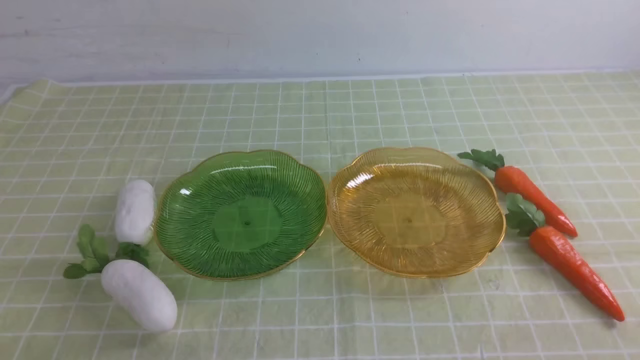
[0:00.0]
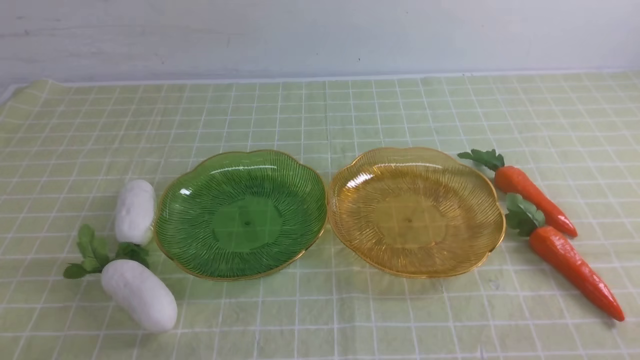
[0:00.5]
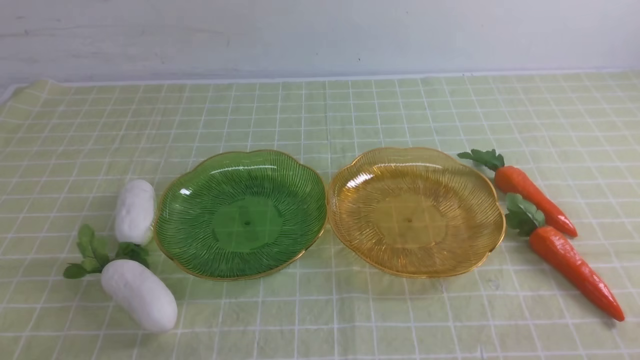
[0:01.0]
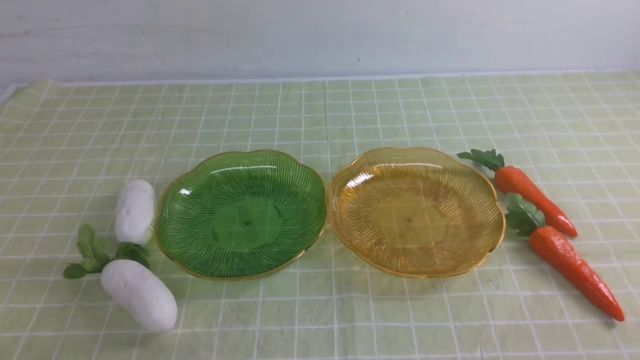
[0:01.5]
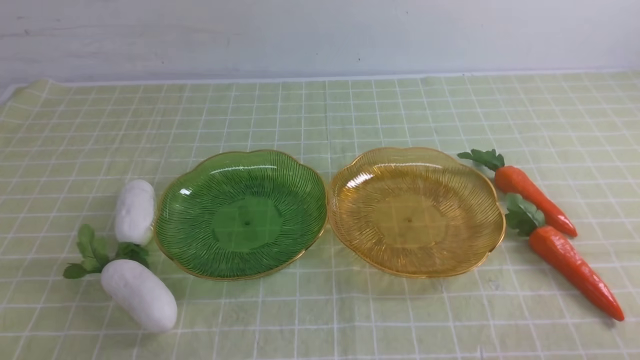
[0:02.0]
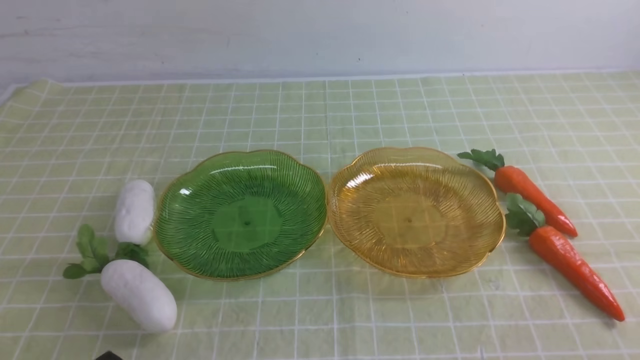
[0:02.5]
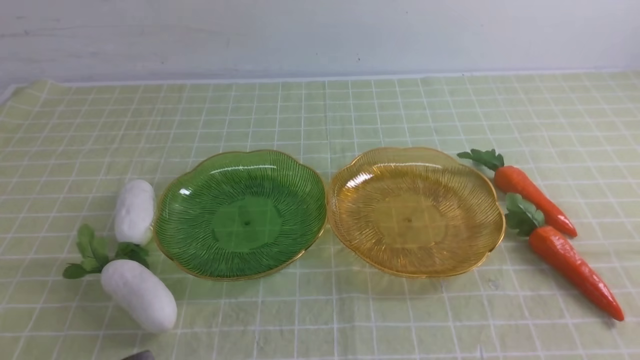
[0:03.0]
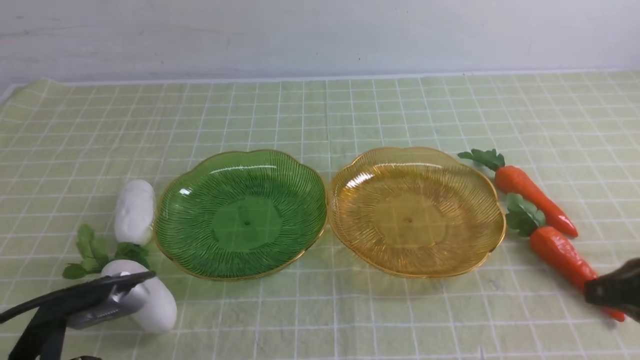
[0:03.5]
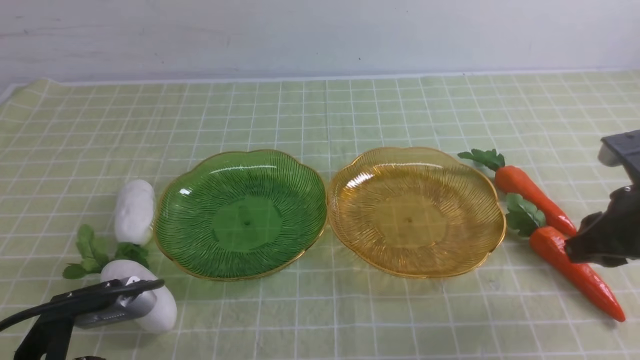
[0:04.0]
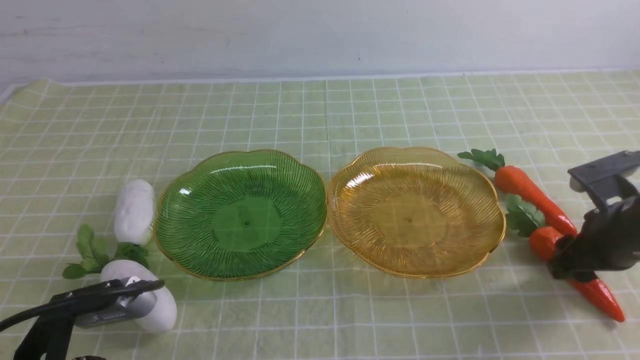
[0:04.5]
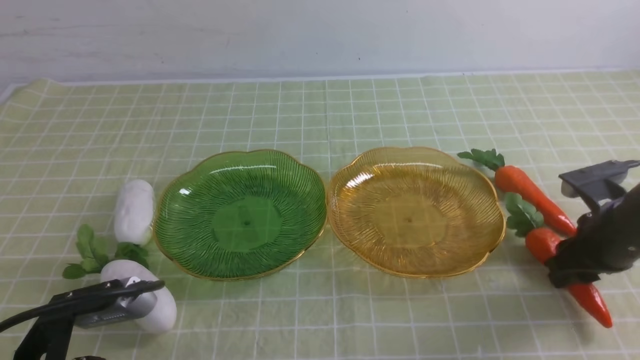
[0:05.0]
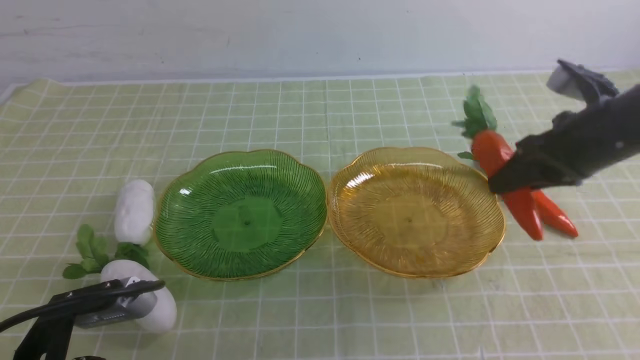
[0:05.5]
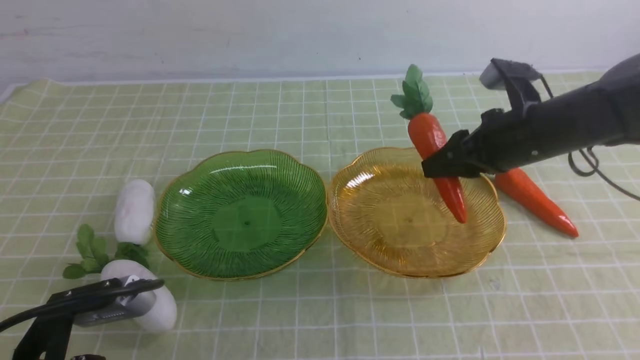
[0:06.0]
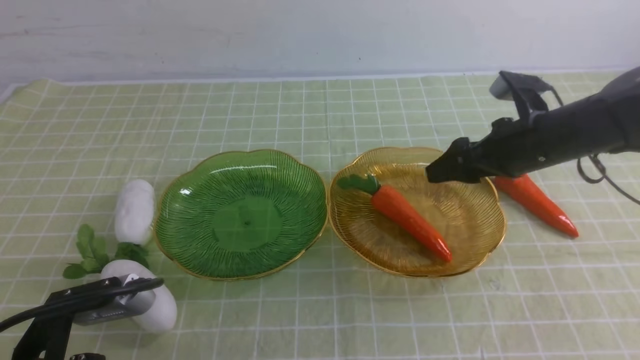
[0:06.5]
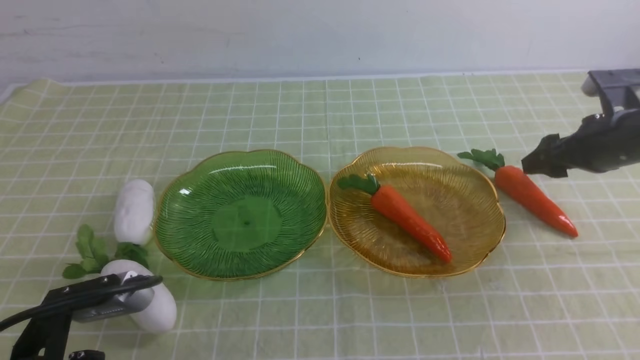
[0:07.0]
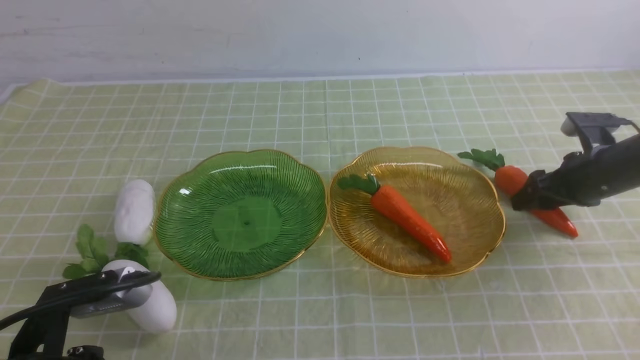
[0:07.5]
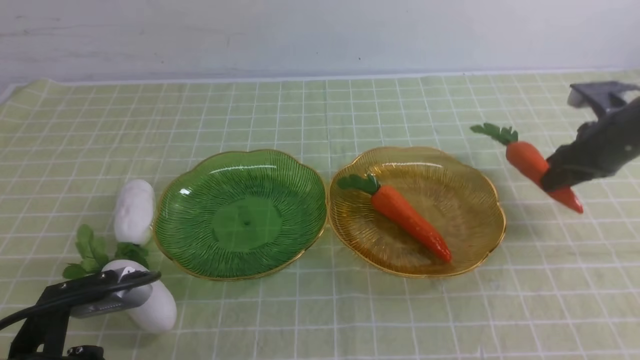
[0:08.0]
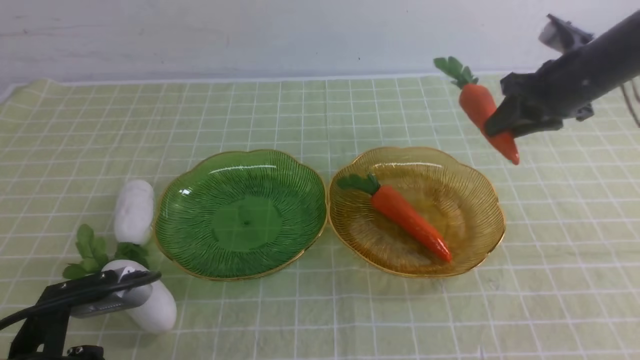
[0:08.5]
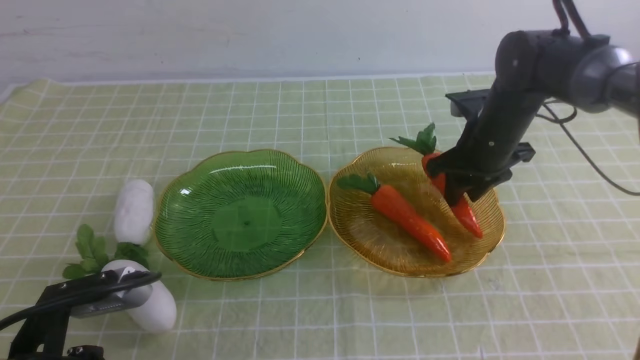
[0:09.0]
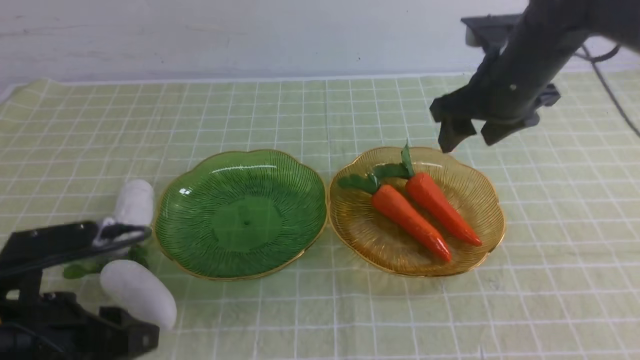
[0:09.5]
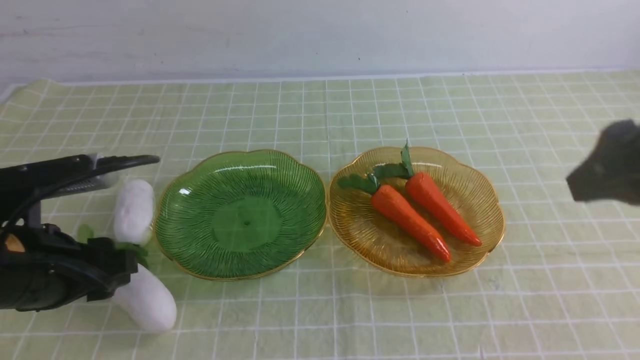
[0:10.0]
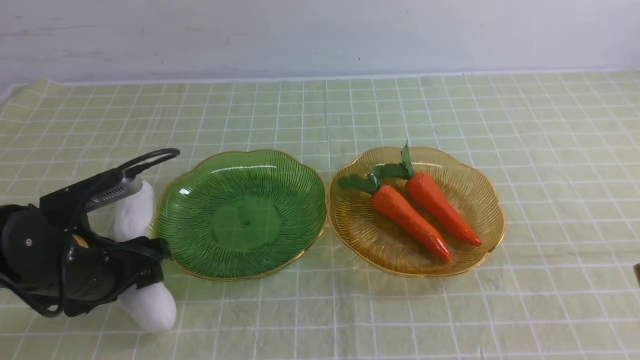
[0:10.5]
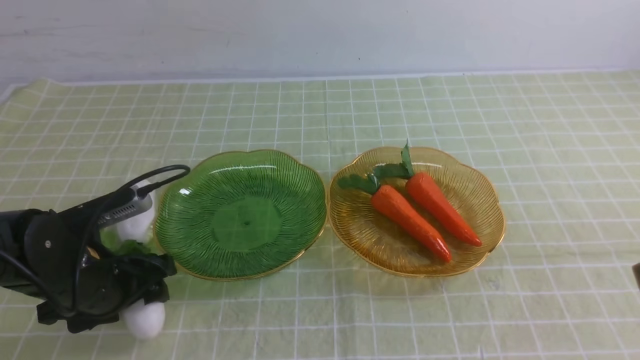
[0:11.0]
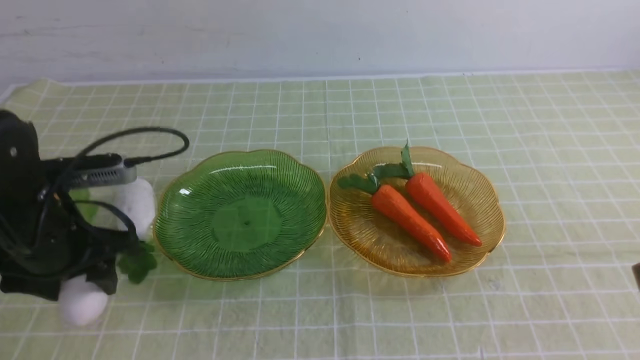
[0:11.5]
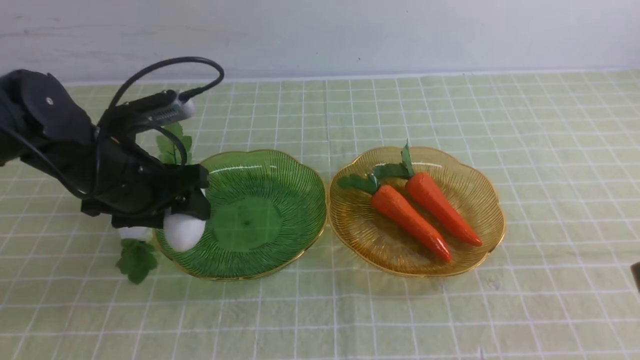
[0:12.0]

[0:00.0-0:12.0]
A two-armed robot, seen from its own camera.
Step, 0:00.0 to 0:07.5: use the right arm to grab a carrot and put it into the right plate.
Step, 0:08.0 to 0:10.0: use the right arm to grab a carrot and put it into the right plate.
0:02.0 to 0:04.0: The left gripper travels forward by about 5 cm. The right gripper shifts approximately 20 cm forward, and opens.
0:04.0 to 0:06.0: The right gripper is displaced forward and to the left by roughly 15 cm.
0:06.0 to 0:08.0: The right gripper moves to the right, some 15 cm, and opens, then closes once more.
0:08.0 to 0:10.0: The right gripper moves backward, upward and to the left, roughly 30 cm. The left gripper travels forward by approximately 10 cm, and opens.
0:10.0 to 0:12.0: The right gripper shifts some 5 cm backward. The left gripper heads forward, covering approximately 10 cm.

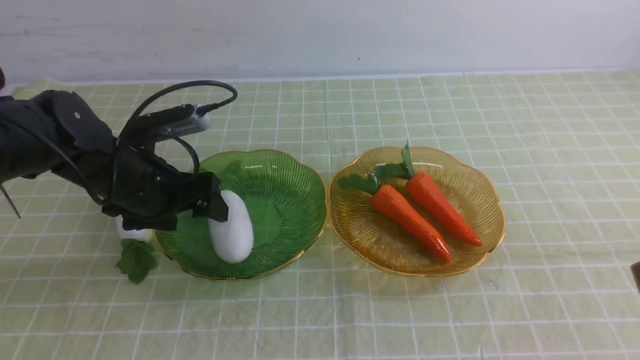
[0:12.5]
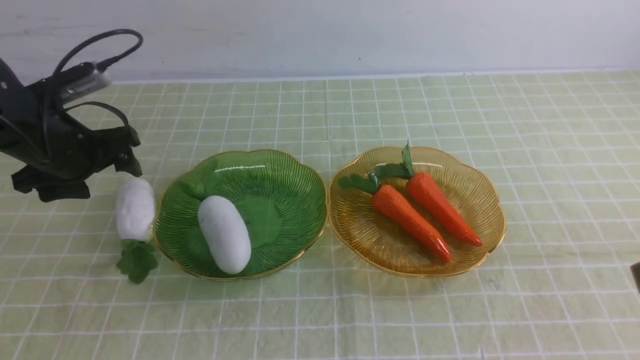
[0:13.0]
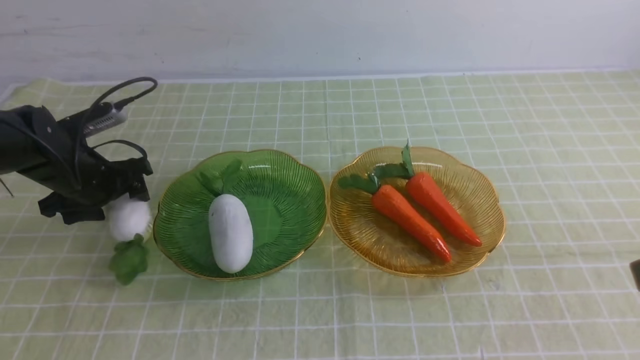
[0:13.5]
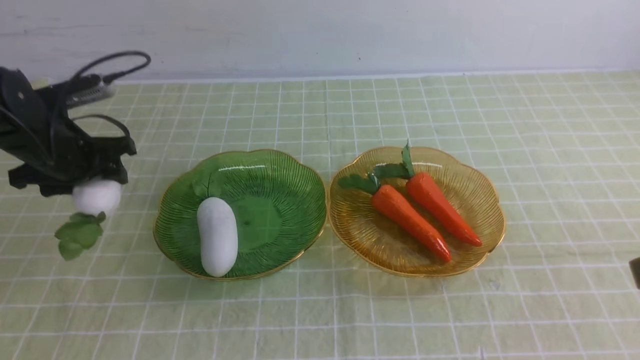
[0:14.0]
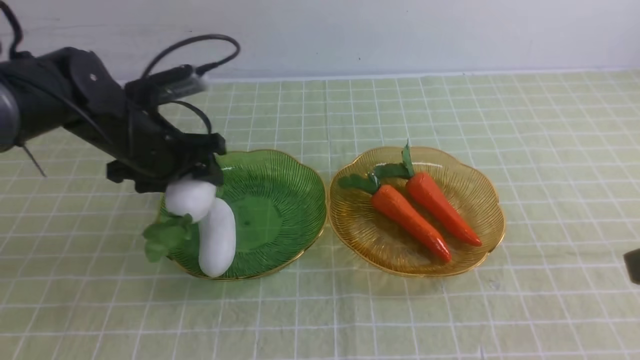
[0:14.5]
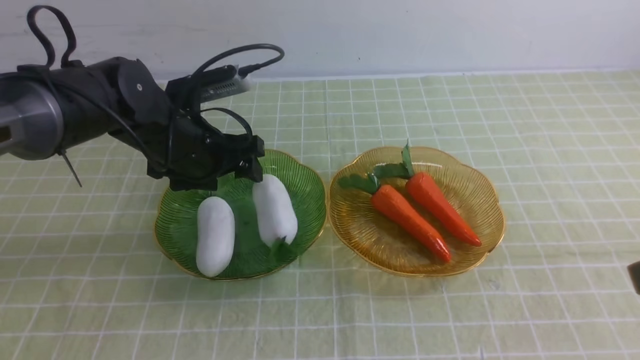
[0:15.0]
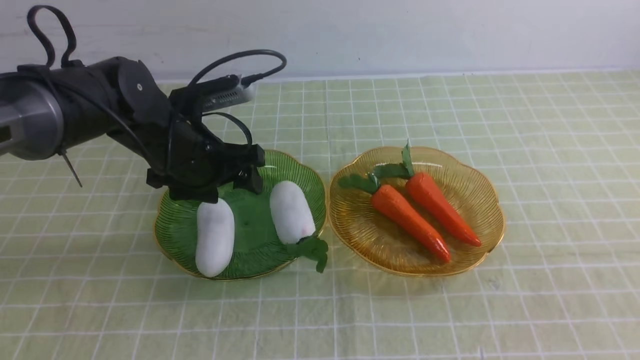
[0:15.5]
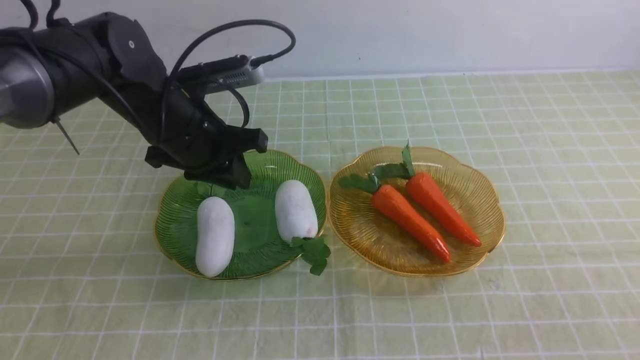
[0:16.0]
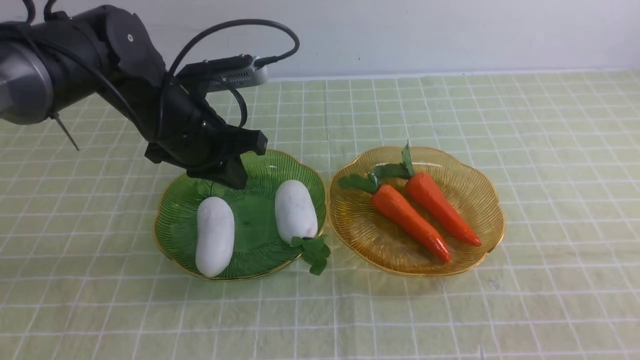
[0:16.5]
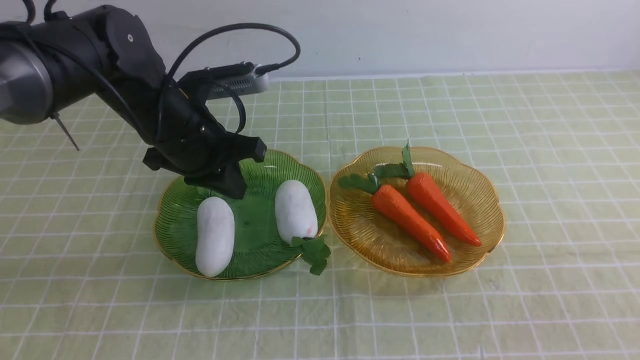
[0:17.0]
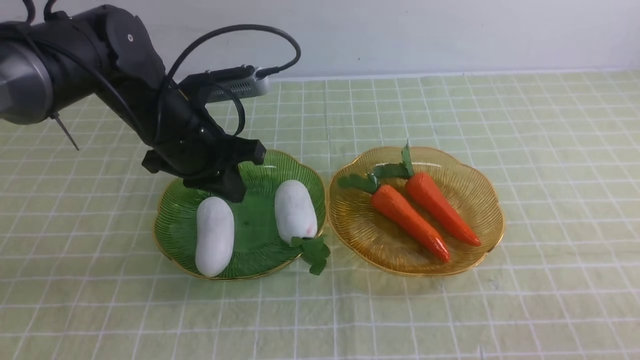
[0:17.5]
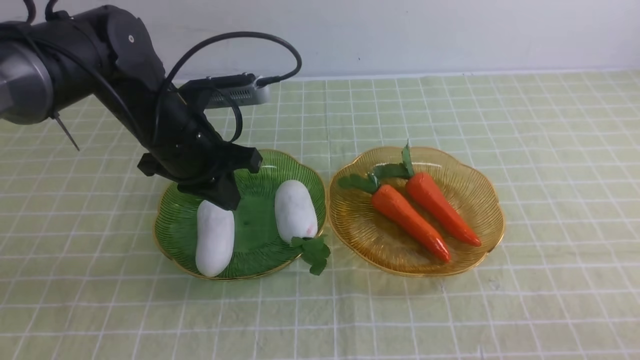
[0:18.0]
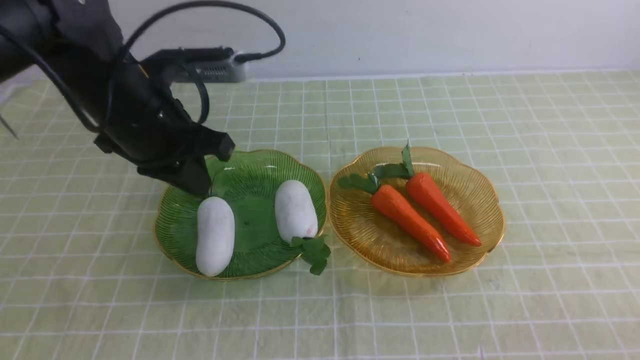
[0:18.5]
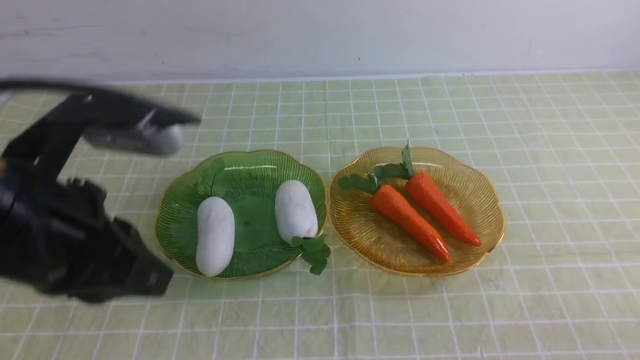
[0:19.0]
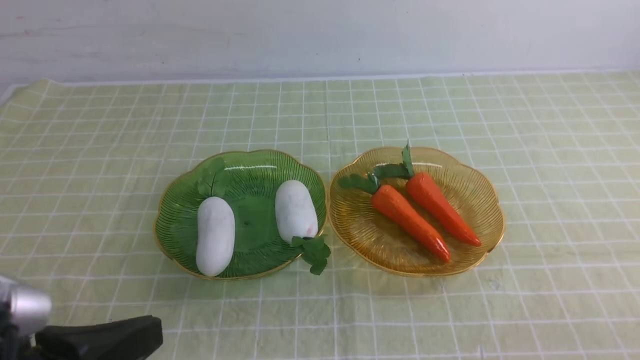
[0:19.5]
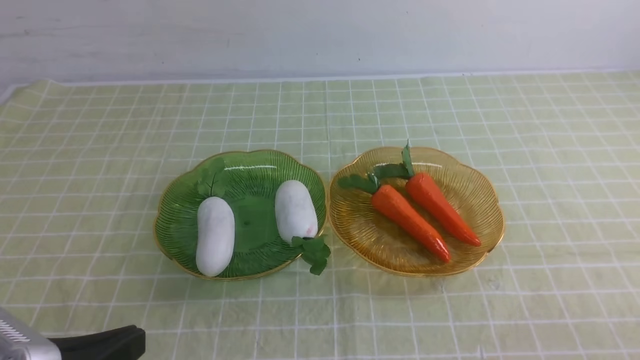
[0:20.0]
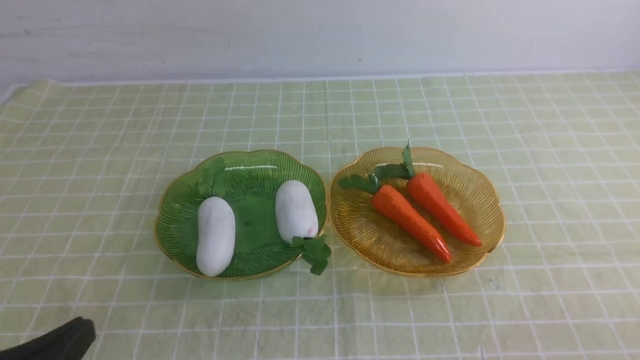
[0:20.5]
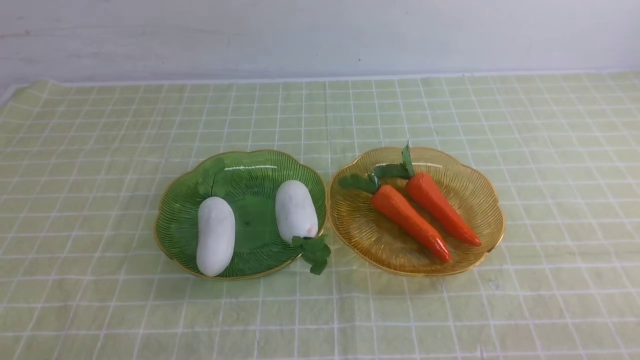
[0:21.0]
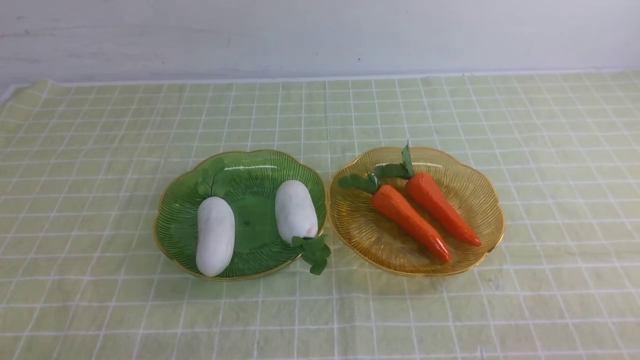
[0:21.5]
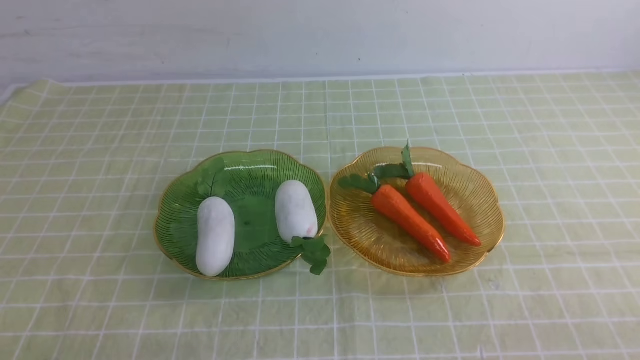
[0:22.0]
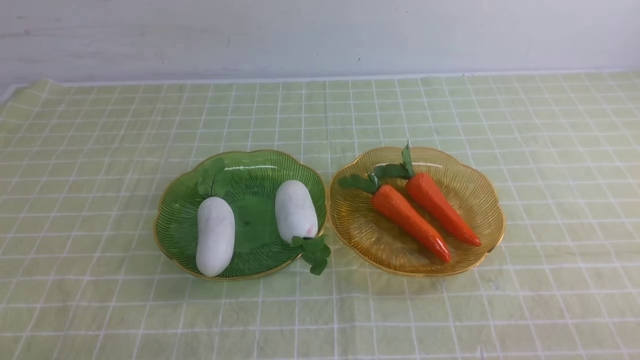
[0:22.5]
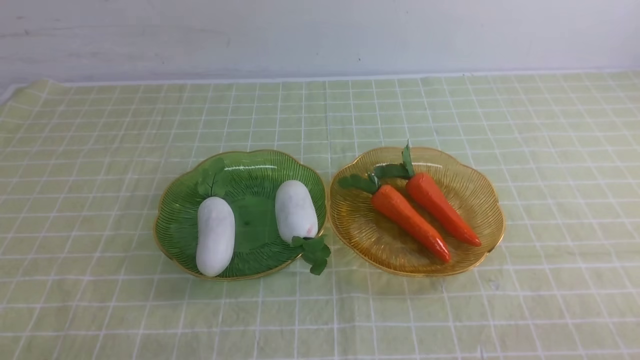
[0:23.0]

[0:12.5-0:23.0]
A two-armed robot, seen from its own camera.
Step, 0:12.5 to 0:15.5: use the left arm to grab a radish and put it into the left plate.
0:12.5 to 0:14.5: The left gripper moves roughly 10 cm to the left and comes back.
0:14.5 to 0:16.5: The right gripper shifts some 10 cm downward and backward, and closes up. Meanwhile the left gripper shifts by roughly 5 cm, and closes its fingers.
0:16.5 to 0:19.0: The left gripper heads backward, covering approximately 20 cm. Meanwhile the right gripper travels downward by some 10 cm.
0:19.0 to 0:21.0: The left gripper travels downward and backward by roughly 20 cm.
0:21.0 to 0:23.0: Both grippers stay put.
